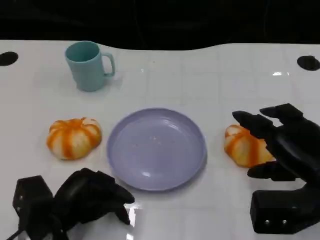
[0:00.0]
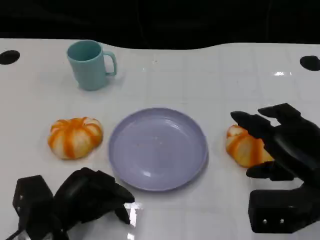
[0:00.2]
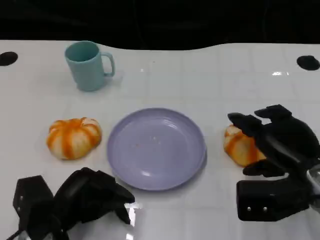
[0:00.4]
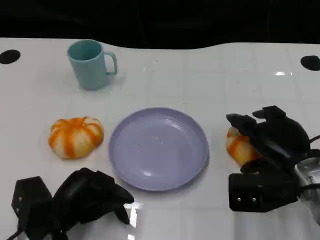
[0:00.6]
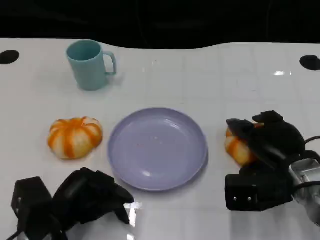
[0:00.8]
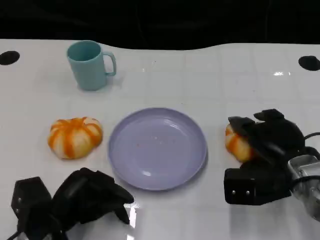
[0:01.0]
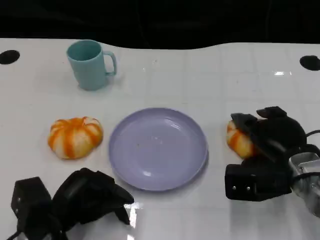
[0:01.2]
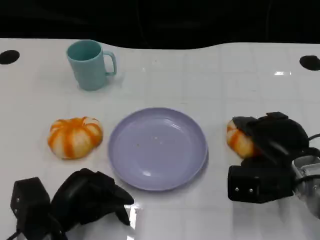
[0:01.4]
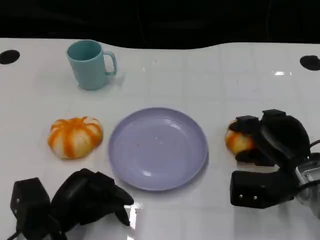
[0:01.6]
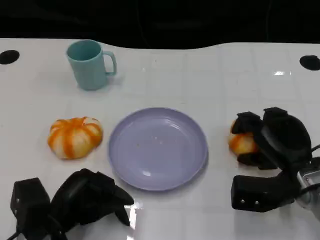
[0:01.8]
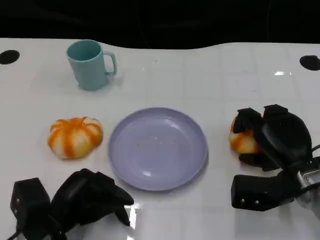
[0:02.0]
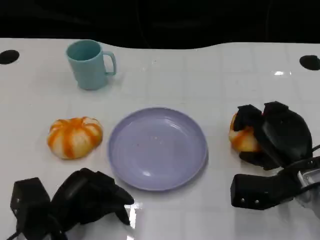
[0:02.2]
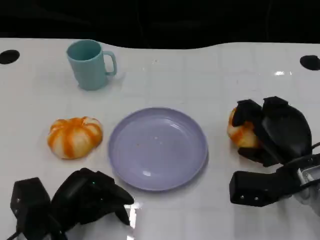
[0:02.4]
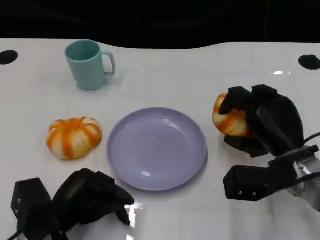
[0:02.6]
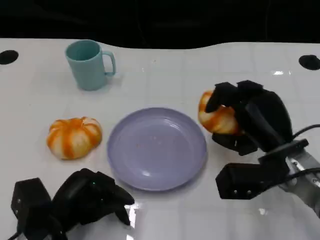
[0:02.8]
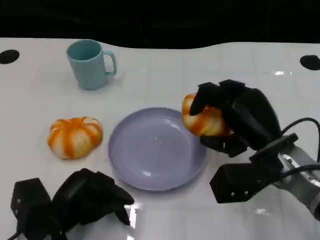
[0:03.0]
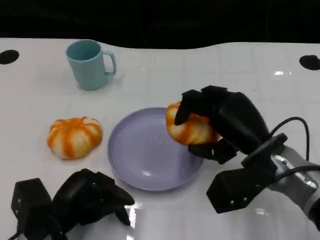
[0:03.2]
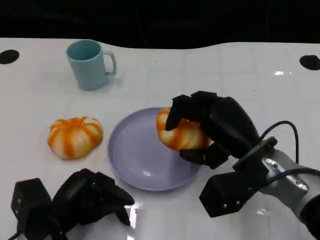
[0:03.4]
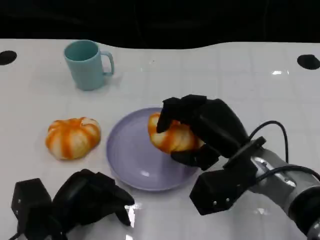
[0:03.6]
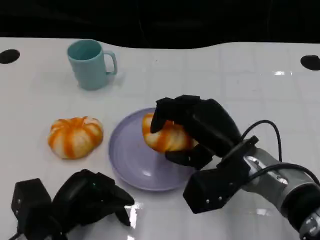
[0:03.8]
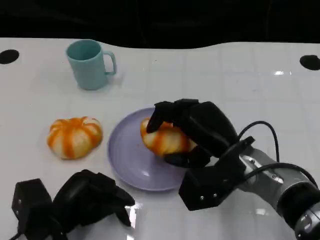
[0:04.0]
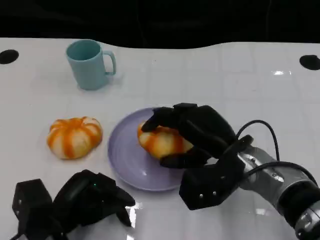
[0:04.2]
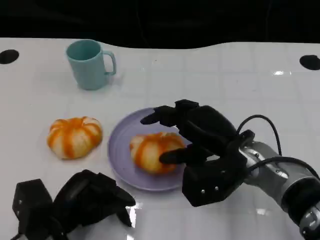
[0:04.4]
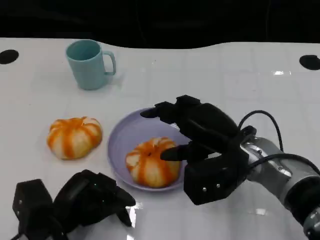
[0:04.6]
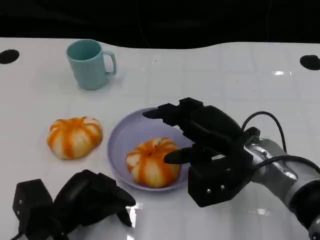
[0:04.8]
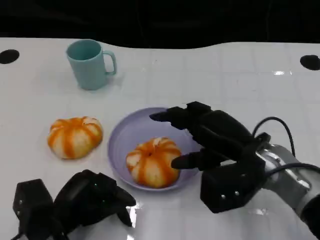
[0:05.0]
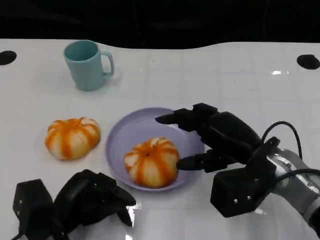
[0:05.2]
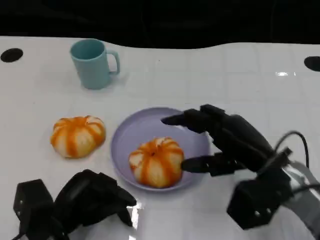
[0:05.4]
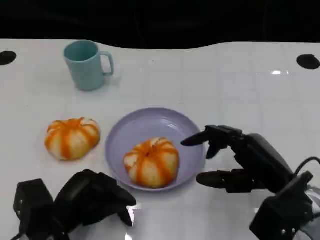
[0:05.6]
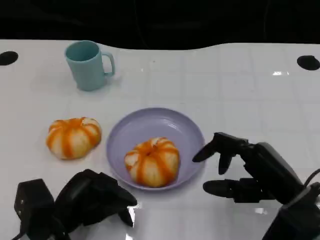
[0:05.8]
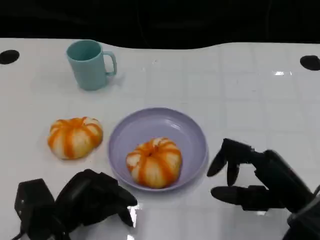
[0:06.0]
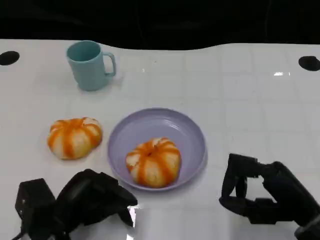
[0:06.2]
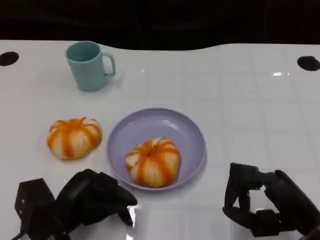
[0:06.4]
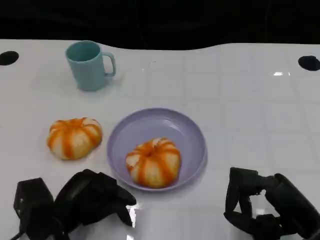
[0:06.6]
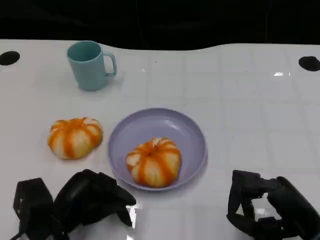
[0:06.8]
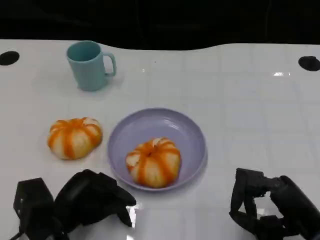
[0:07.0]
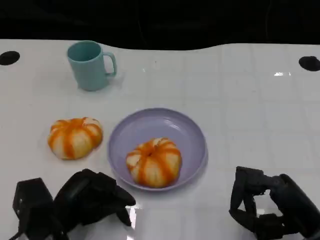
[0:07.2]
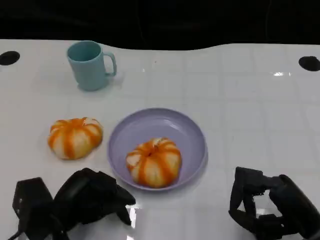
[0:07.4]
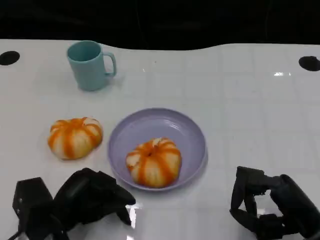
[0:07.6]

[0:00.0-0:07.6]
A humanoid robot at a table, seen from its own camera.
Task of the whole recording: Grasp the bread from the table and place it into the plate.
0:00.0 to 0:01.6: The right hand goes about 5 cm downward.
0:01.6 to 0:03.0: The right hand ends up approximately 5 cm from where it was.
0:04.6 to 0:06.0: The right hand is displaced to the right and backward by some 15 cm.
0:06.0 to 0:07.6: There are only small adjustments of the hands.

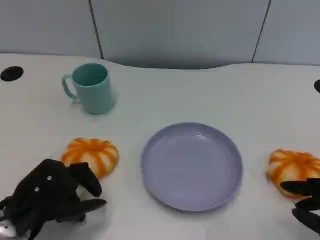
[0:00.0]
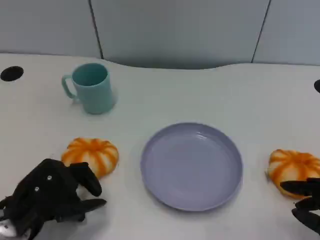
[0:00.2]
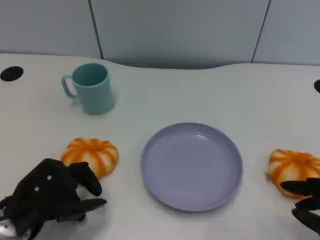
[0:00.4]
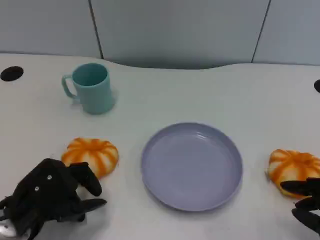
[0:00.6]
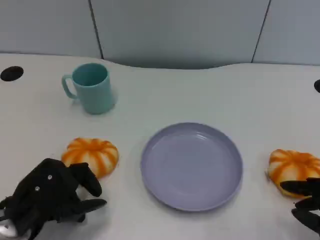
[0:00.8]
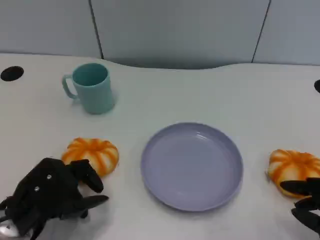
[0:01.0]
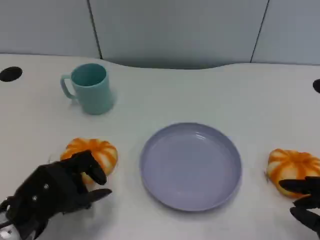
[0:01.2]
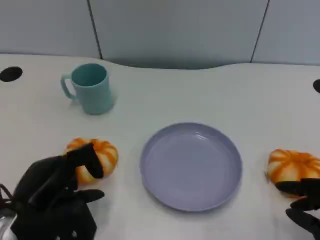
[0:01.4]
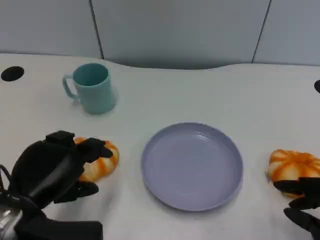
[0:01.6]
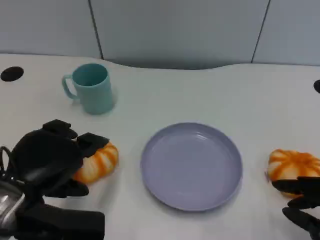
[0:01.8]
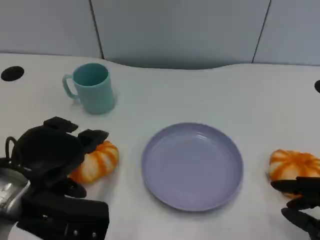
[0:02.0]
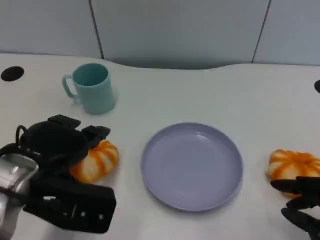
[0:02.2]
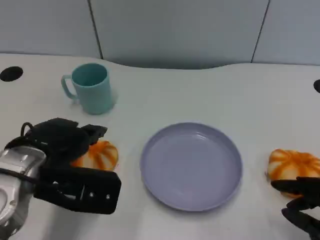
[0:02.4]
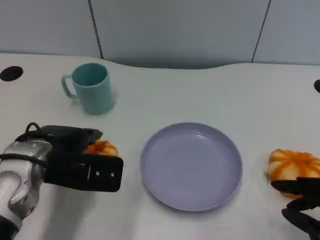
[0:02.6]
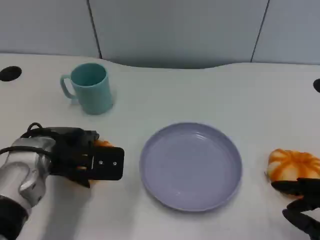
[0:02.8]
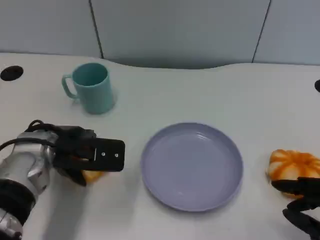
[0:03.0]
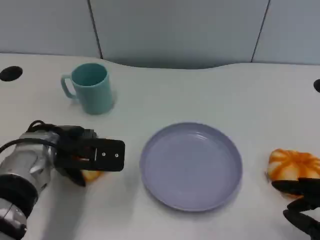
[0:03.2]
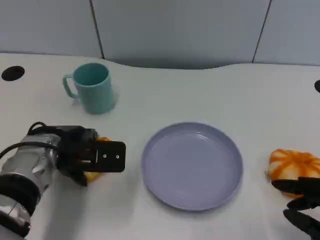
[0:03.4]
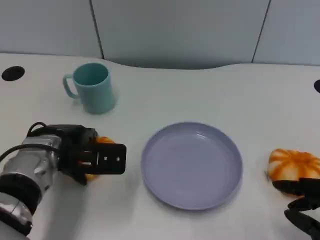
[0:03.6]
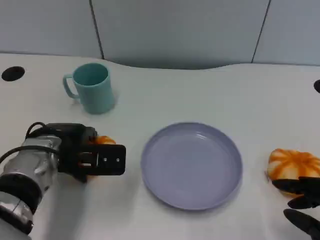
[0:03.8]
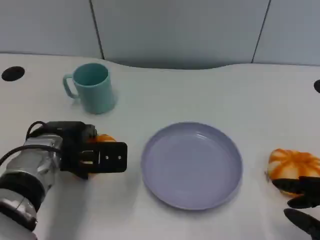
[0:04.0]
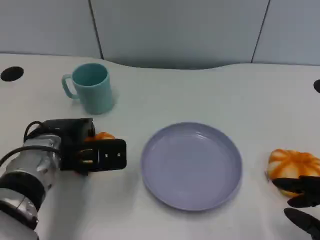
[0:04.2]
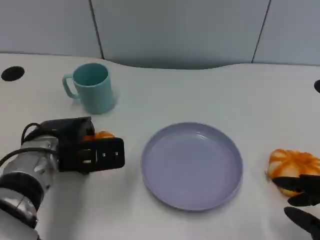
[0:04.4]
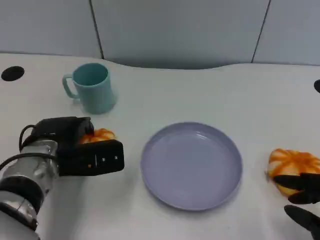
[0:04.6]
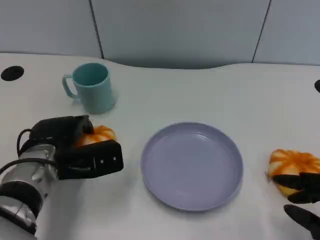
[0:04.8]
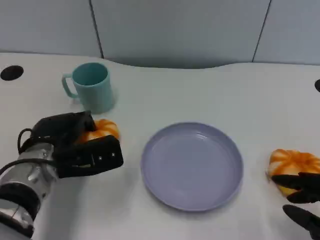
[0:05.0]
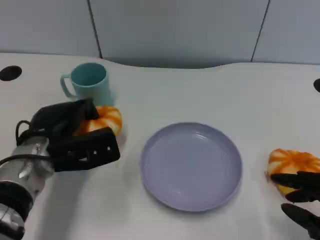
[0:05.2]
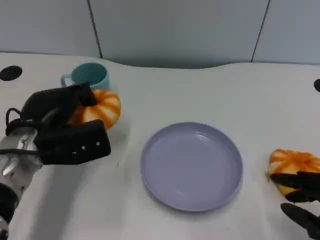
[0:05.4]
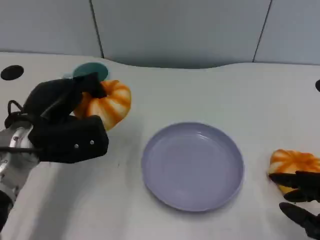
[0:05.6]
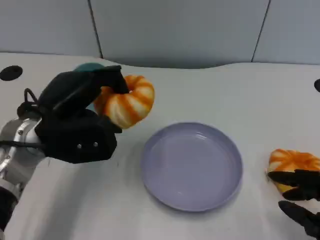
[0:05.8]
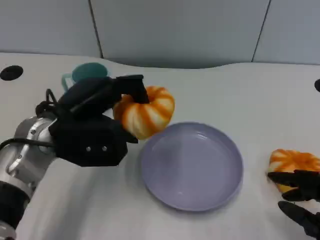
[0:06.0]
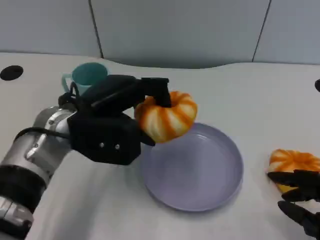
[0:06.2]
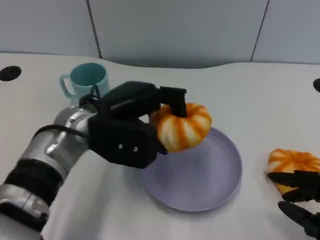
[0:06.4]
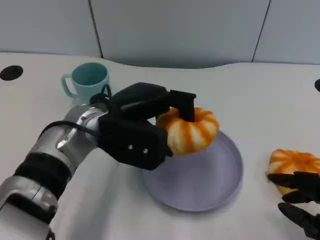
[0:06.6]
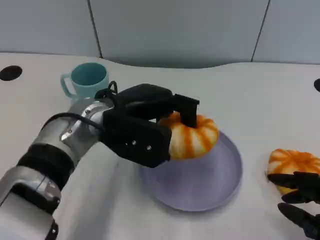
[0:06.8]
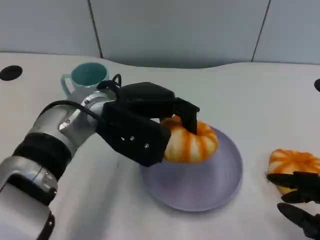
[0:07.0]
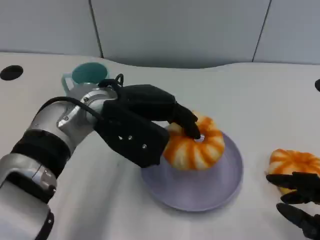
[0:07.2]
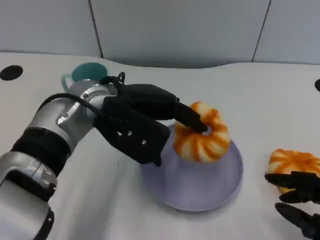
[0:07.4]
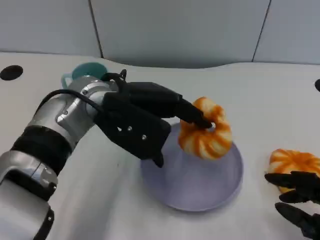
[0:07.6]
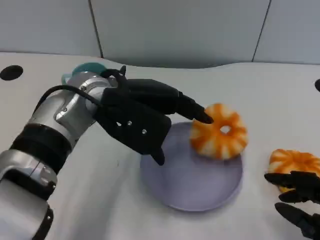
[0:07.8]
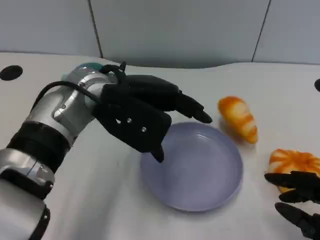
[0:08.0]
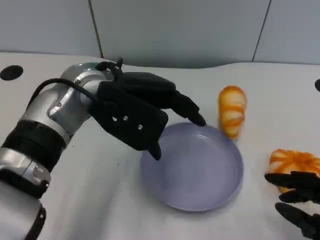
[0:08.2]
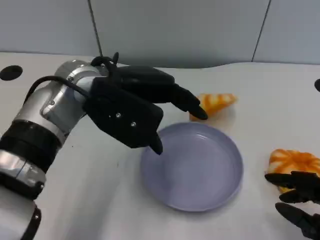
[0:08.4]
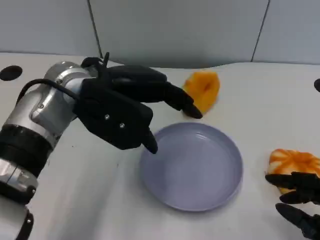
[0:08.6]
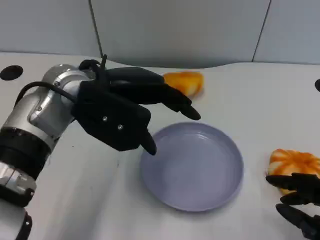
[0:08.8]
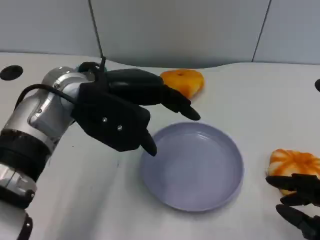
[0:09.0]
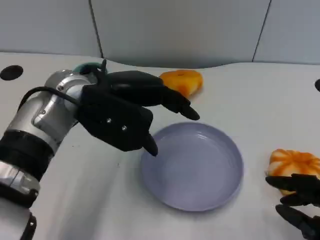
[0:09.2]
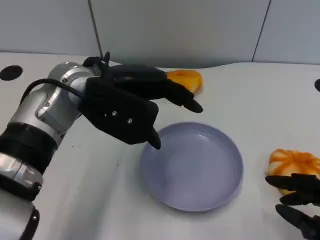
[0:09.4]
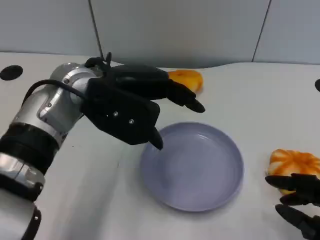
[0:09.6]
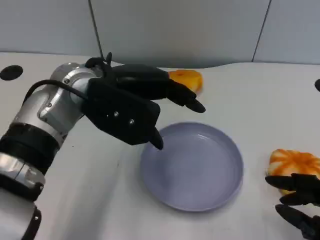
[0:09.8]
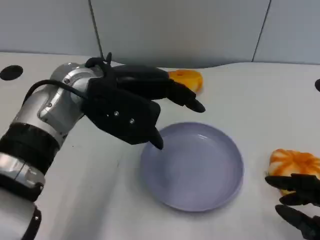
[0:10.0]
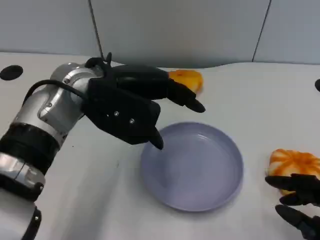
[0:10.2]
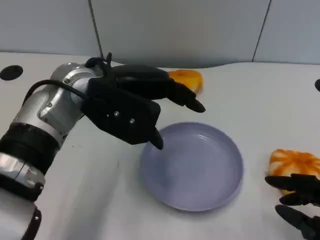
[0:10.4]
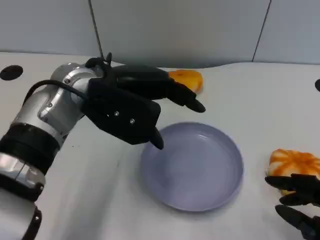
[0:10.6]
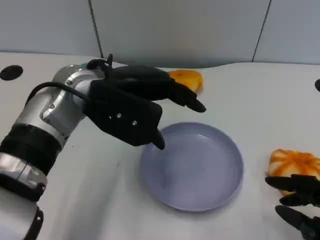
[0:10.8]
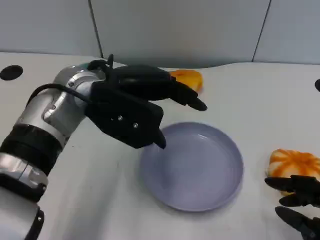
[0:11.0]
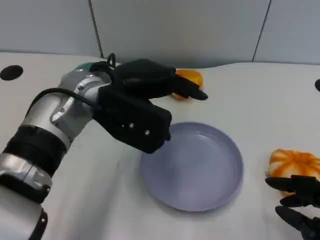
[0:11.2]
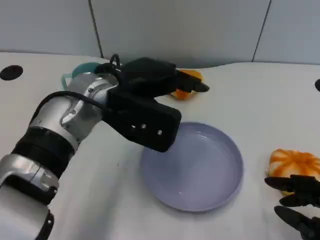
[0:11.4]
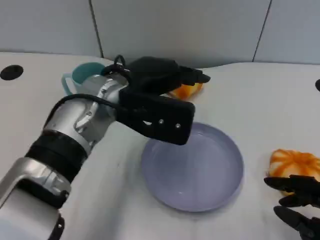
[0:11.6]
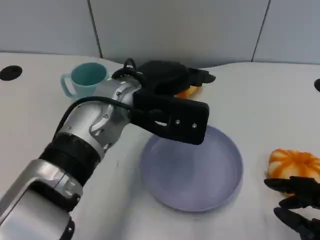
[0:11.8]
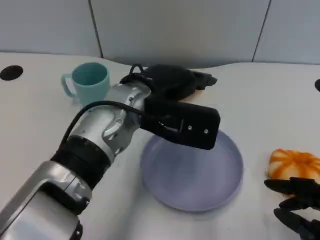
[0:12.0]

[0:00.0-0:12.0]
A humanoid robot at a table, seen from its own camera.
Task of the whole recording: Grasp the bread from the table and place it into the plate.
0:00.0 to 0:01.6: The left hand travels upward by roughly 5 cm.
0:01.6 to 0:03.0: The left hand moves forward, roughly 10 cm.
0:03.0 to 0:04.4: The hands move only a little.
0:04.4 to 0:06.0: The left hand moves upward, some 5 cm.
0:06.0 to 0:07.6: The left hand is displaced to the right by some 5 cm.
0:09.0 to 0:10.4: Both hands stay put.
0:10.4 to 0:12.0: The left hand heads to the right, covering some 5 cm.

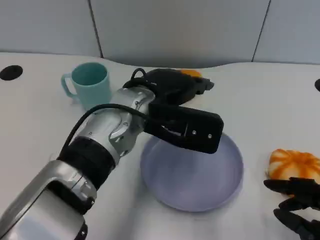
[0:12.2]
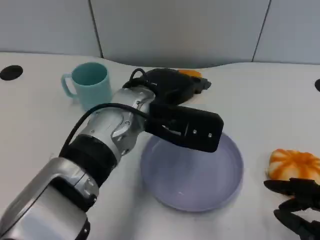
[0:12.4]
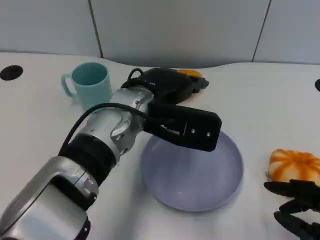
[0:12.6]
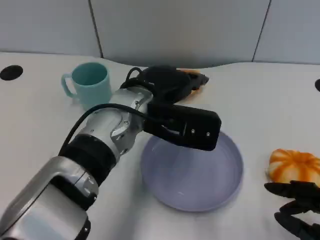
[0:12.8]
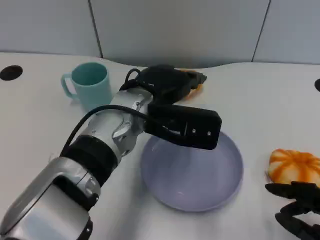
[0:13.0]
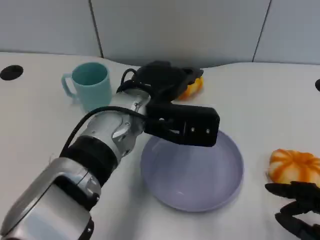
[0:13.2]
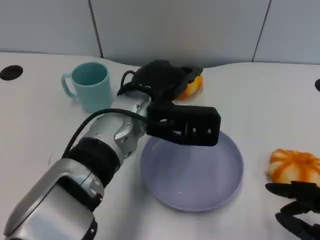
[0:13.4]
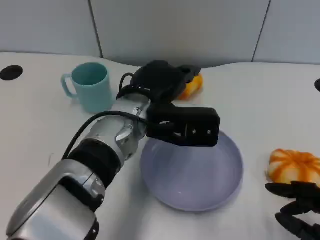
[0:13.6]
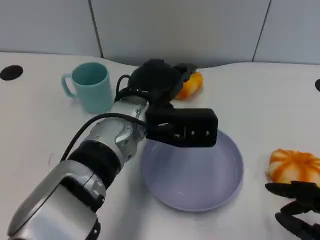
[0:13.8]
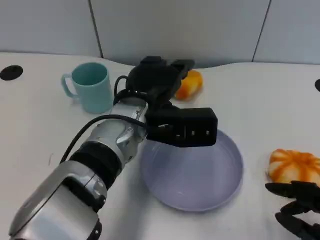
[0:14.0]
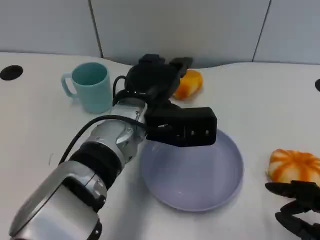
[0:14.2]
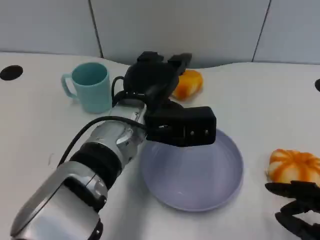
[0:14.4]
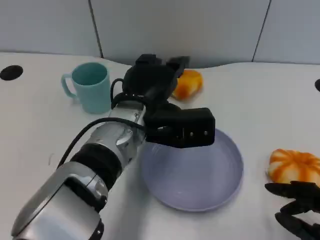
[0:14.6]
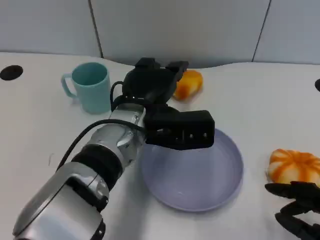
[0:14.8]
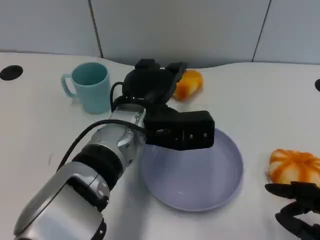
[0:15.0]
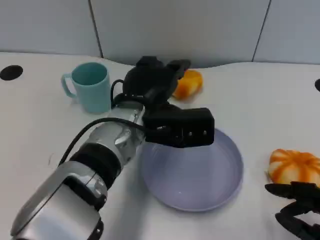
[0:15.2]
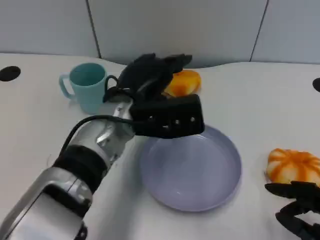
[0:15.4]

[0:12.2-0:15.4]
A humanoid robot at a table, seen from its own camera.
Task of the whole recording: Grasp the bread from the table and place it into the plate.
0:12.2 to 0:13.8: There are only small adjustments of the hands.
0:13.8 to 0:15.4: The hands make only small movements.
